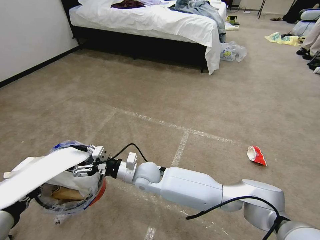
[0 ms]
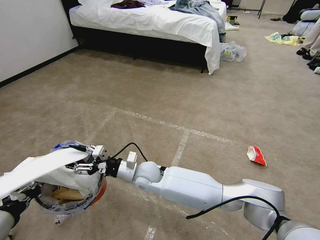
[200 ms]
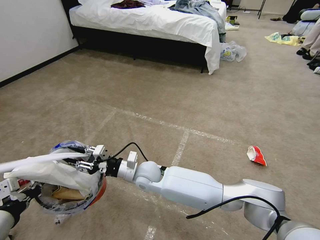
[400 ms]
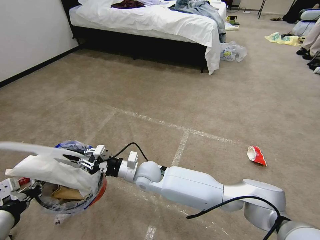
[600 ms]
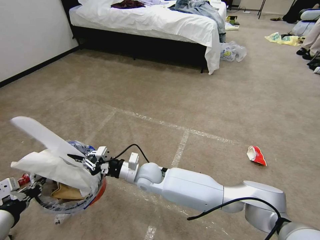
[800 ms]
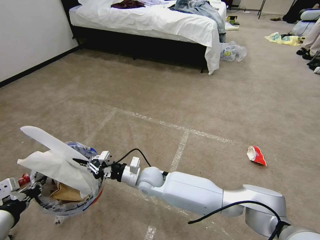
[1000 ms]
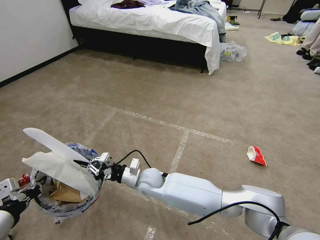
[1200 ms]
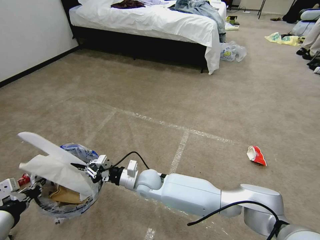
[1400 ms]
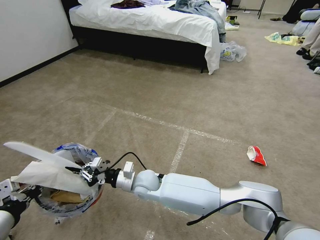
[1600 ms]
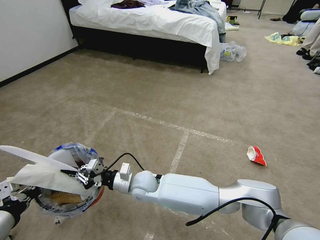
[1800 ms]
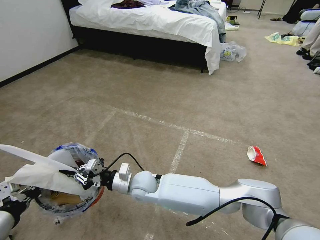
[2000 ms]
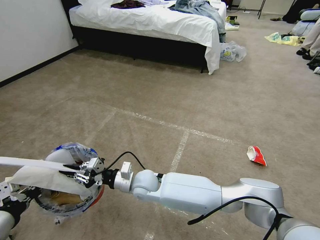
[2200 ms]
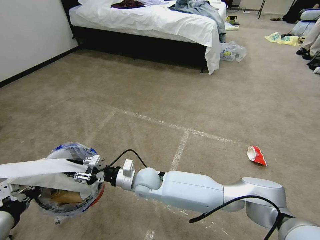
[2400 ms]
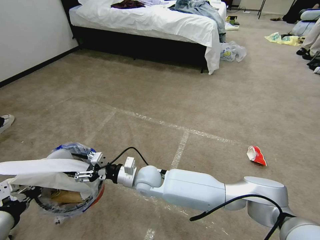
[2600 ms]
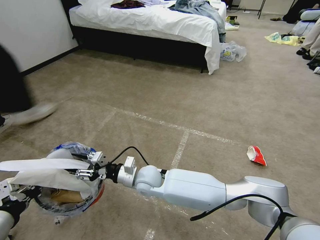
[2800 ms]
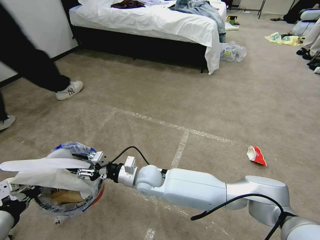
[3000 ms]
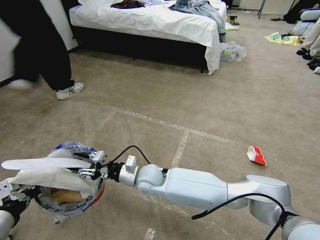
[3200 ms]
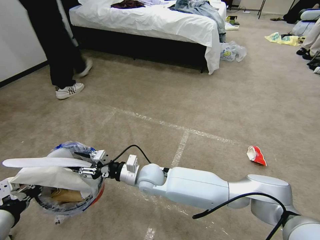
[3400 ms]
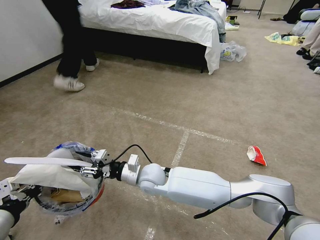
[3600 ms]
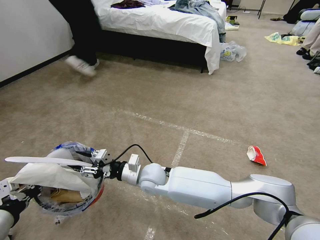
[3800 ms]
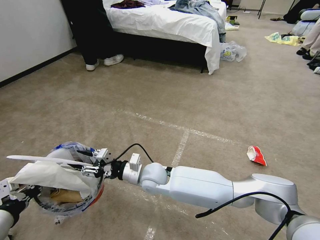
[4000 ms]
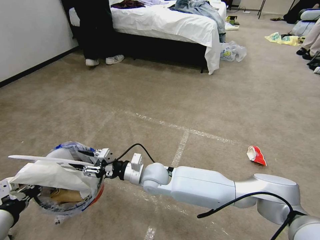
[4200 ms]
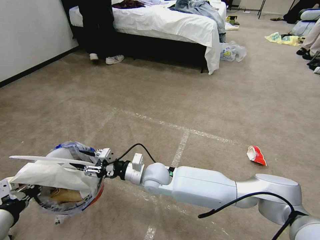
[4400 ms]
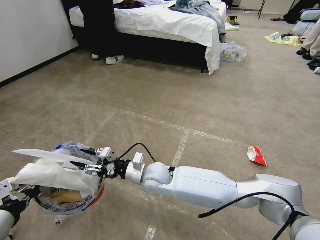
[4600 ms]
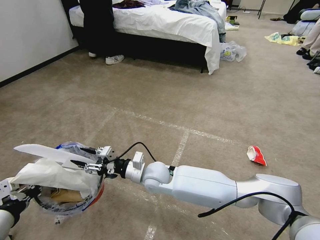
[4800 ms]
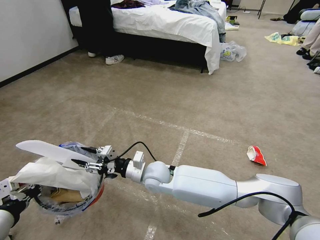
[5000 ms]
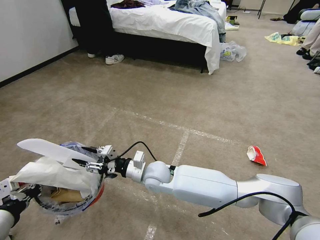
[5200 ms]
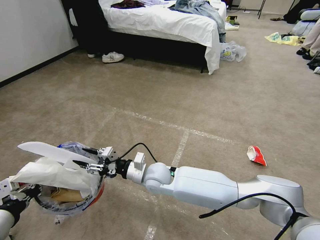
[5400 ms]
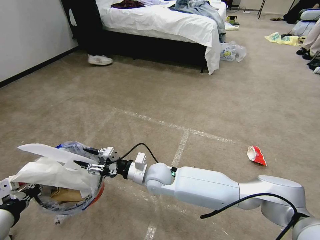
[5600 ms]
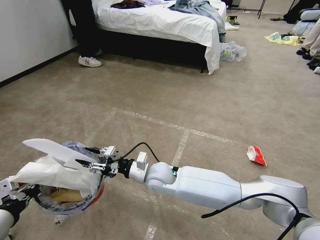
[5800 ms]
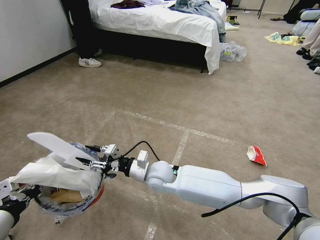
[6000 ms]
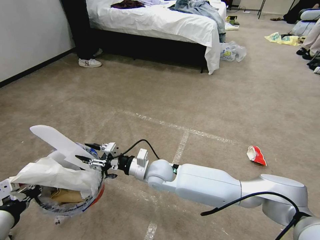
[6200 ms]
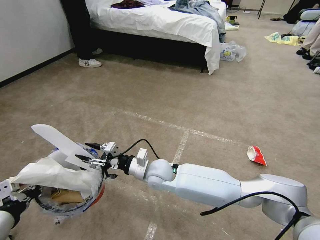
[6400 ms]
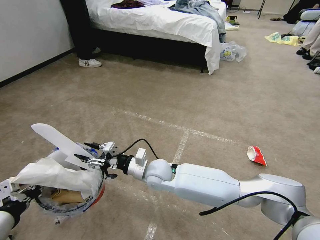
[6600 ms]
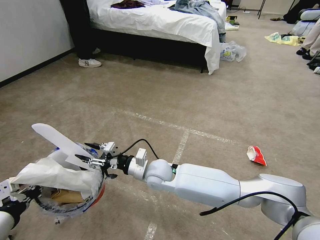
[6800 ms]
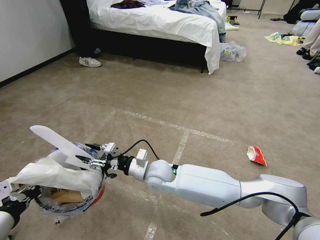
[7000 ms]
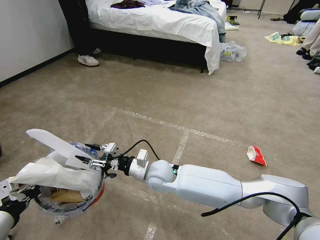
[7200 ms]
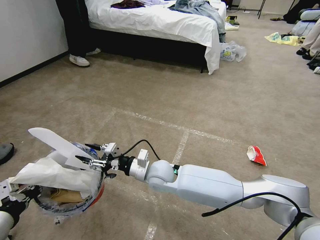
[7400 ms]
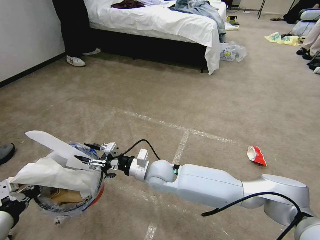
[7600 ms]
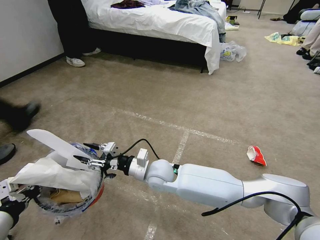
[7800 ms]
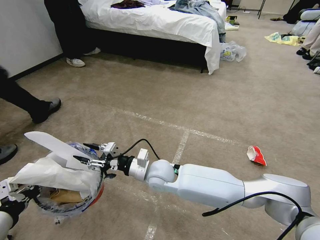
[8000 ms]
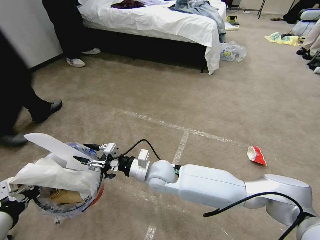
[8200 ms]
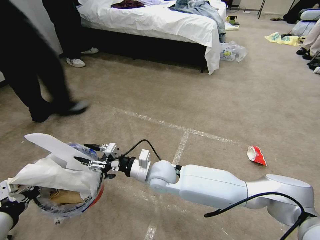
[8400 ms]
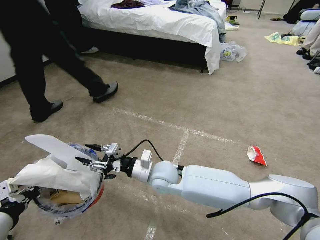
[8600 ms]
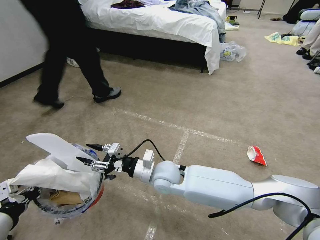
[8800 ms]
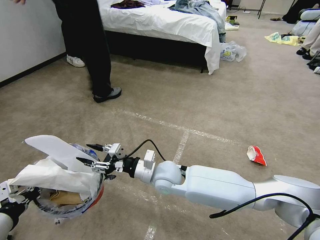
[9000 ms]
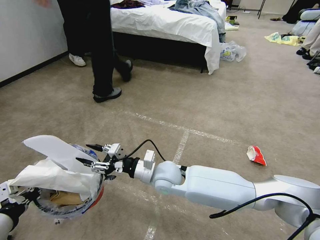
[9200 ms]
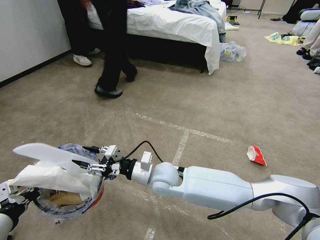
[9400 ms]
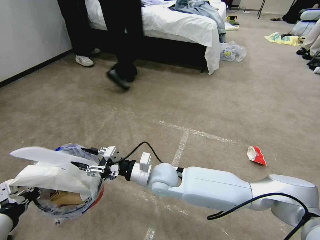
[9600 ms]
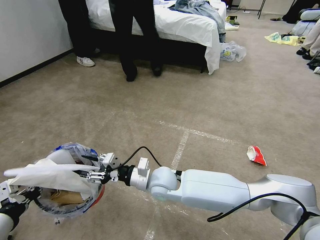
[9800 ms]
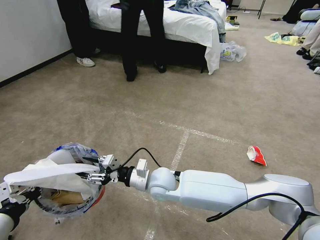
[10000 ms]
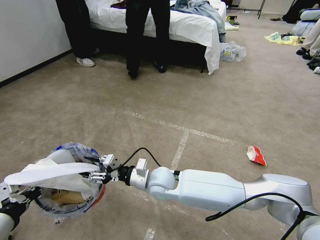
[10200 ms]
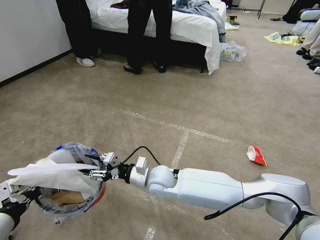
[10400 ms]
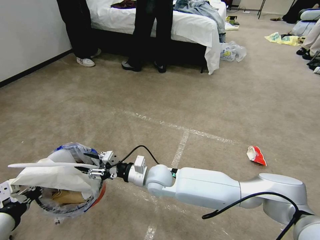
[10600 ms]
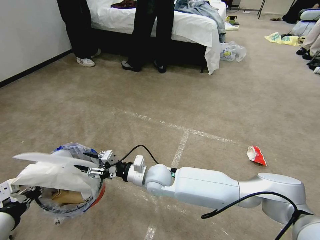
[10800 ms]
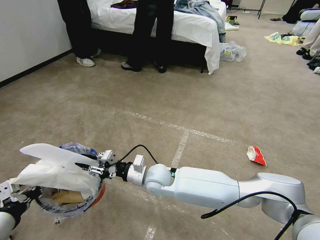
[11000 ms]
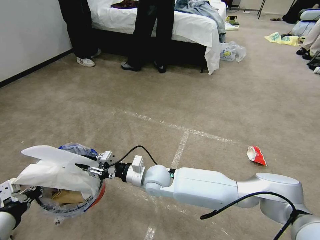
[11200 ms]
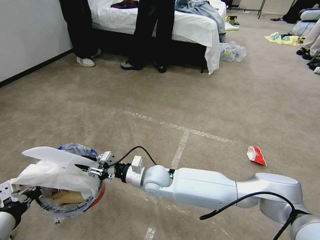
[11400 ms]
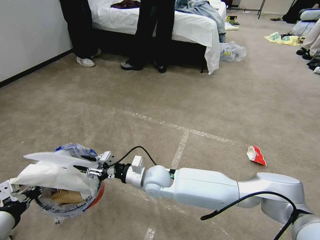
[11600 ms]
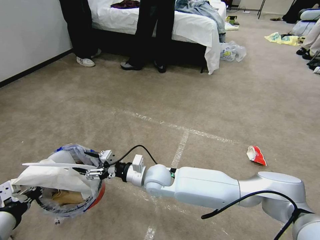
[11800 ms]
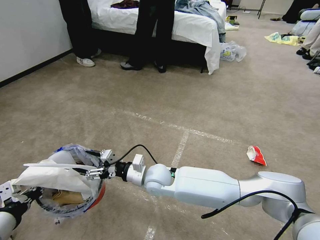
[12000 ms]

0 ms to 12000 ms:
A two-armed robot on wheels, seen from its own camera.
Task of the whole recording: Pick up the trash bin and place the garbage on the floor into it.
0 ms to 1600 ms: The right gripper closes.
1600 ms to 3000 ms: The right gripper opens its fingers.
3000 ms to 6000 ms: The grippers make only small movements.
6000 ms to 7600 ms: Neither gripper changes place.
7600 ms to 12000 ms: The grippers stay close to where they were, moving slightly.

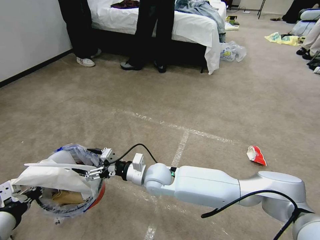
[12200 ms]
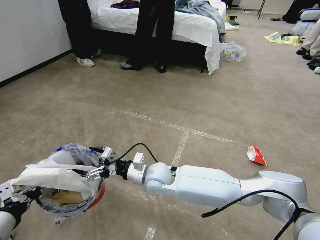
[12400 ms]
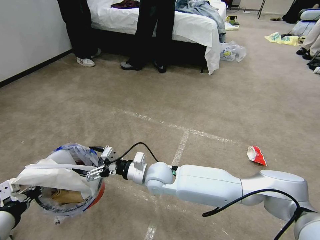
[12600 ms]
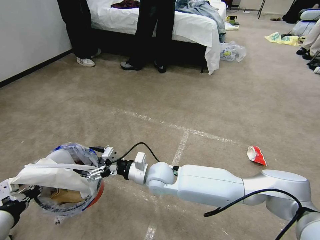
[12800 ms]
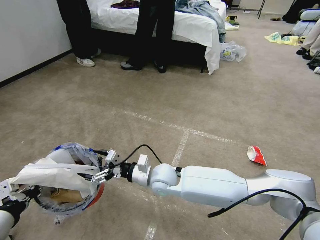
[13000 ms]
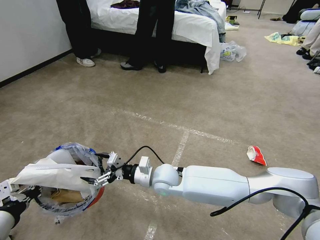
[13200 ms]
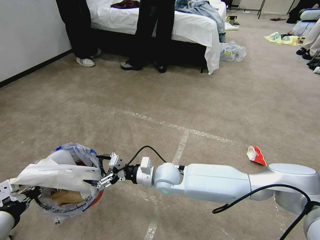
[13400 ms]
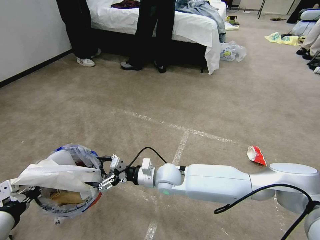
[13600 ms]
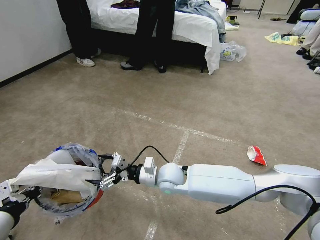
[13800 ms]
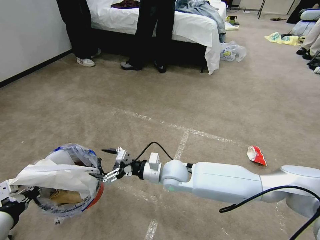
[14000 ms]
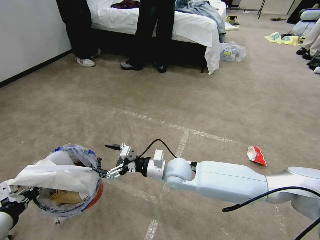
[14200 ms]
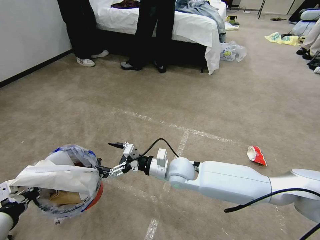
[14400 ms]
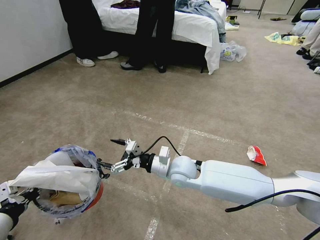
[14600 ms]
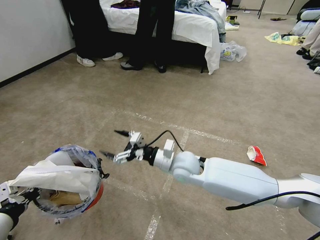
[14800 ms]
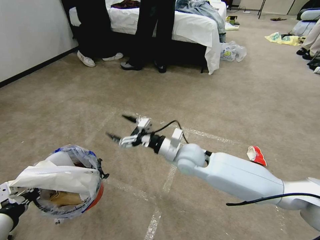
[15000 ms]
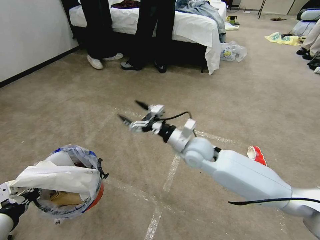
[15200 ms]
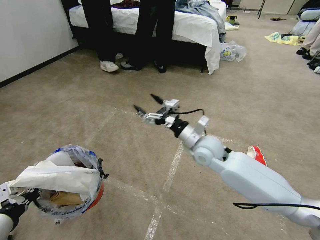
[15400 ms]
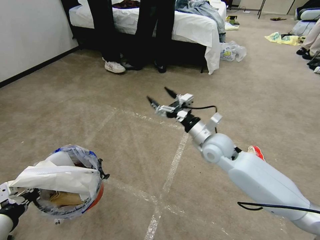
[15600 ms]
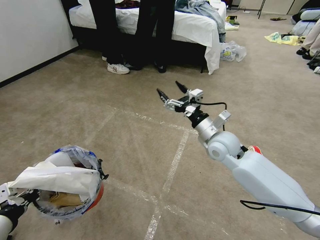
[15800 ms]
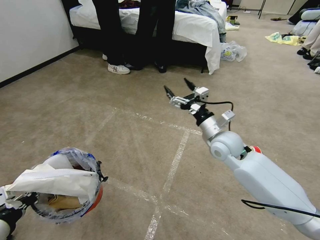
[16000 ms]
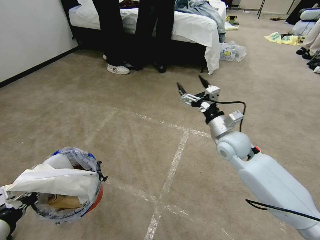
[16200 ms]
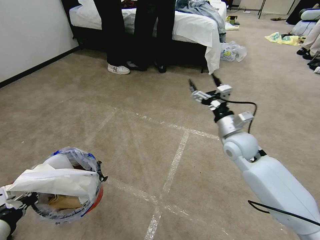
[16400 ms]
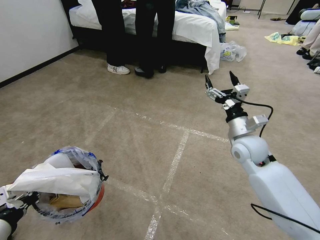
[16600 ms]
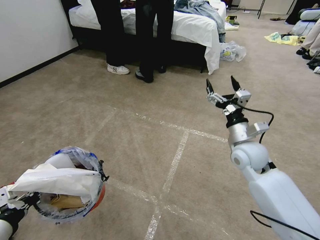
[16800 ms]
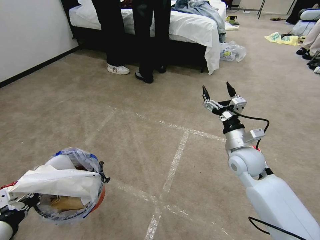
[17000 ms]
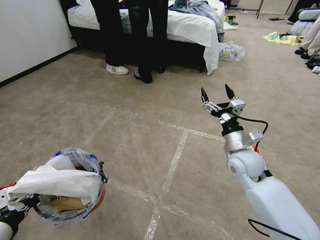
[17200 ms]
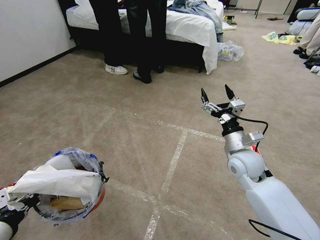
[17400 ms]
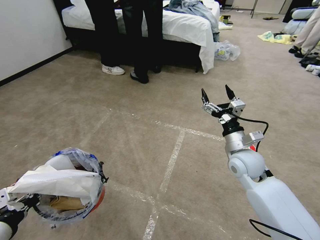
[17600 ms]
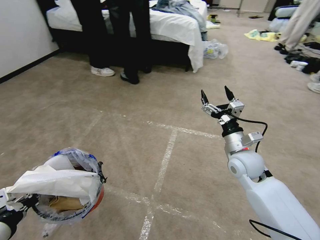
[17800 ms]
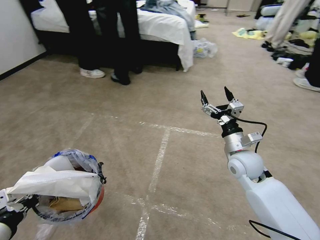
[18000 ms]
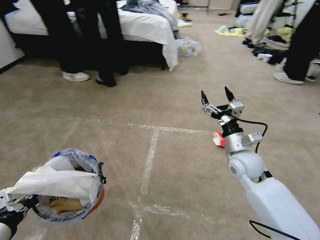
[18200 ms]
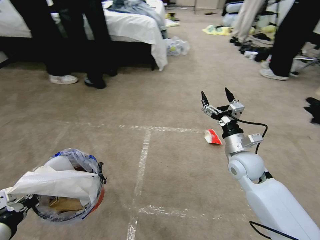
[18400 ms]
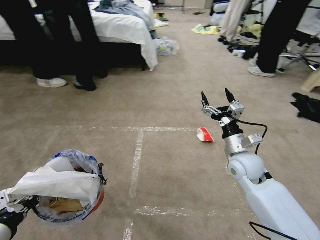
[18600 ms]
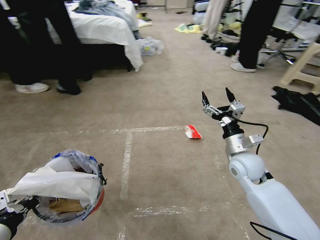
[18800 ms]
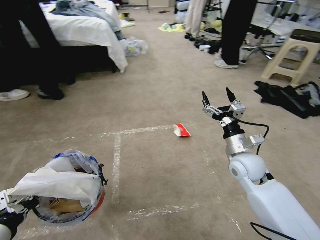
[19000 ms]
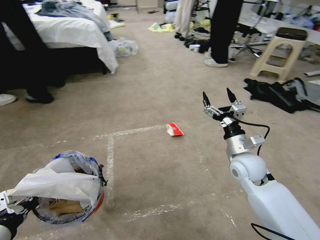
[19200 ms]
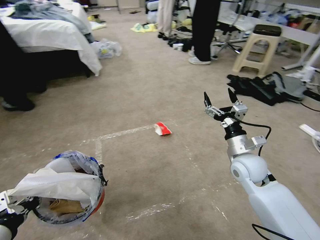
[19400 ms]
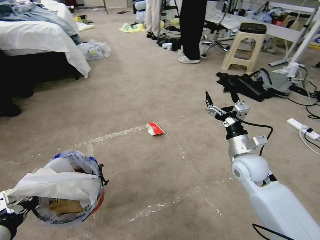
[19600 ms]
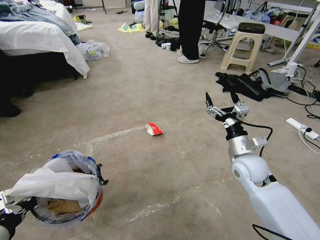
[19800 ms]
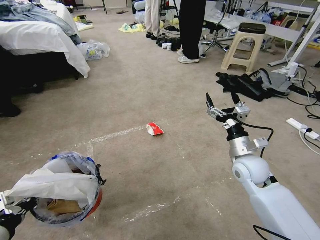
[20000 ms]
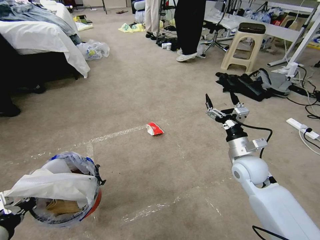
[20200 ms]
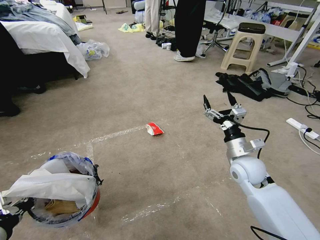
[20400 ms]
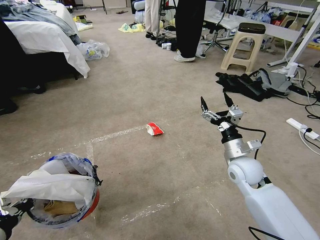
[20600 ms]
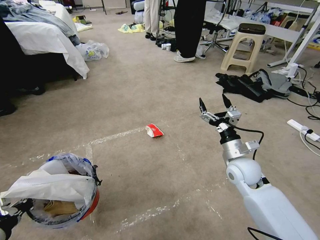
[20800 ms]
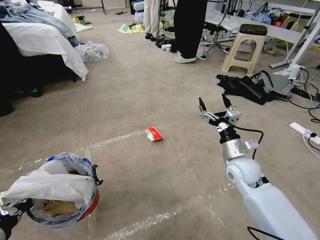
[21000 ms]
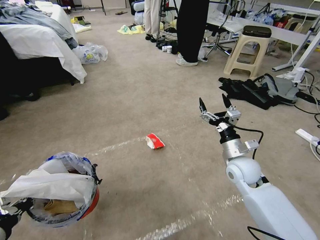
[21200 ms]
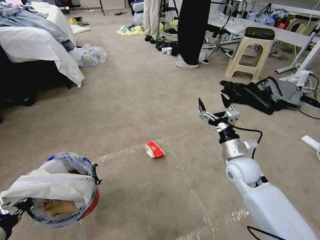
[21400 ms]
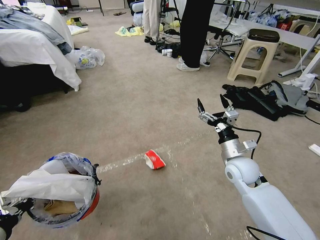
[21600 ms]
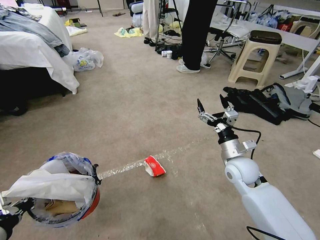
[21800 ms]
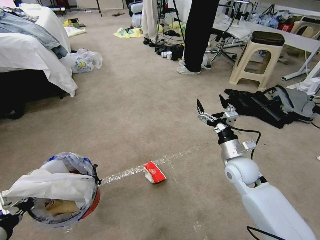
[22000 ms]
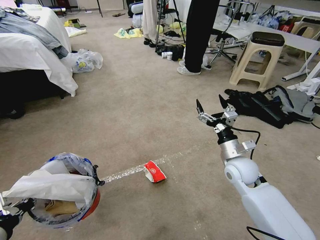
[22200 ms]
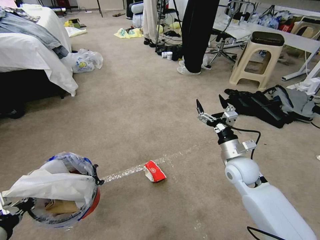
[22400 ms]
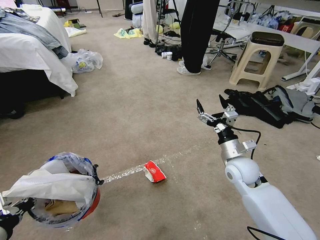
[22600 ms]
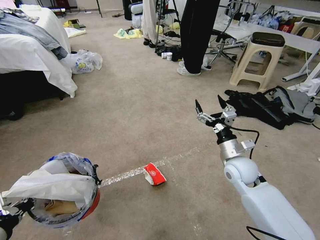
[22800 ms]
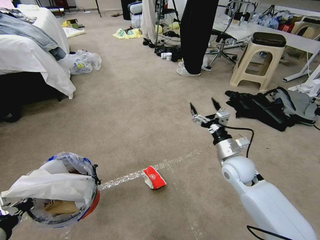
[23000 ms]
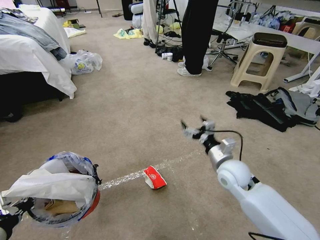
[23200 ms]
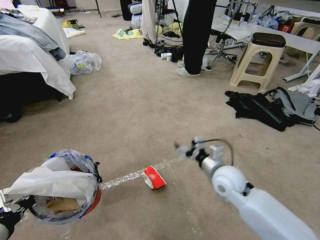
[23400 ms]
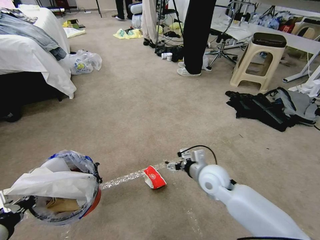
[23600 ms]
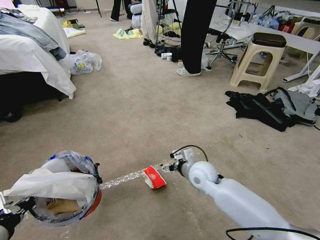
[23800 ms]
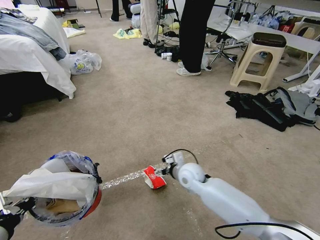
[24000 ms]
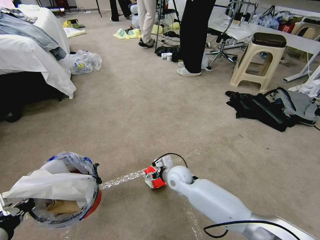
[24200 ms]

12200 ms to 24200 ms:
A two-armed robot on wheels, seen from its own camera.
Task of the whole recording: Pick up the trash bin and place the garbage on the floor into it.
12200 ms to 13800 ms: The grippers move only a little.
13800 ms to 15200 ms: The right gripper travels upward and to the right by about 10 cm.
15200 ms to 16600 ms: The right gripper heads to the right, covering approximately 15 cm.
16600 ms to 18200 ms: The right gripper ends up approximately 5 cm from where it was.
22600 ms to 24200 ms: The right gripper moves to the left and downward, roughly 20 cm.
